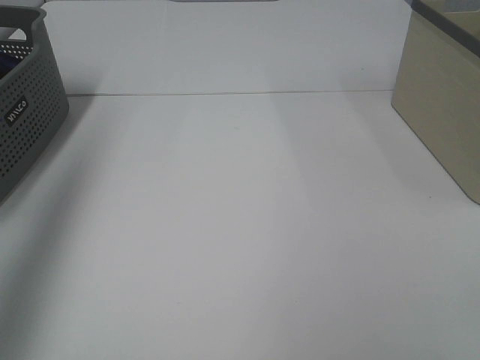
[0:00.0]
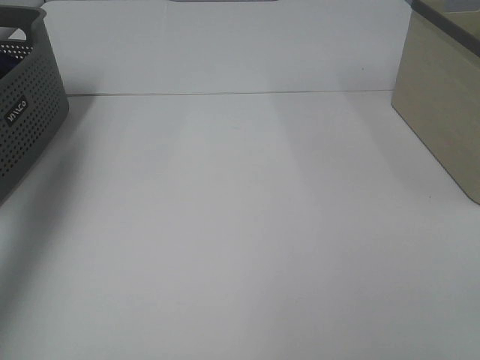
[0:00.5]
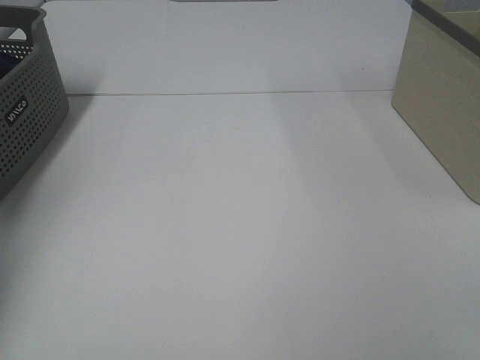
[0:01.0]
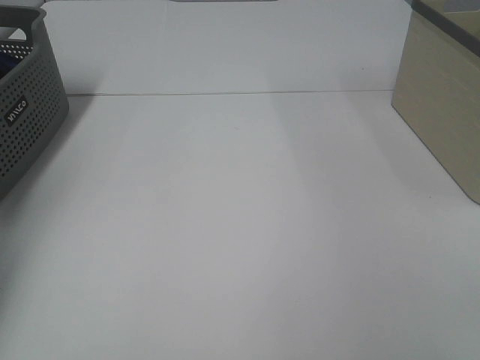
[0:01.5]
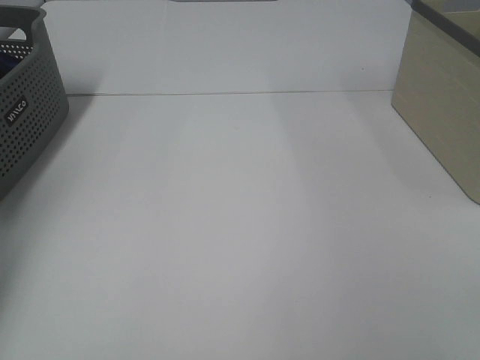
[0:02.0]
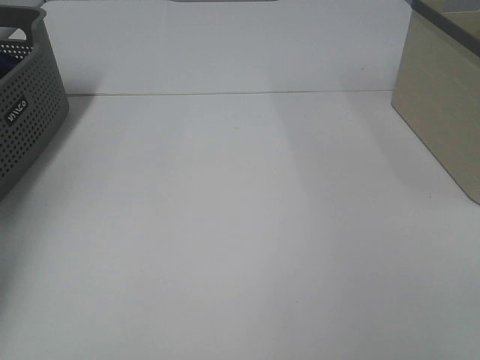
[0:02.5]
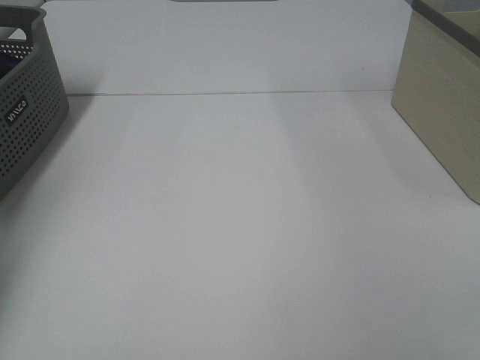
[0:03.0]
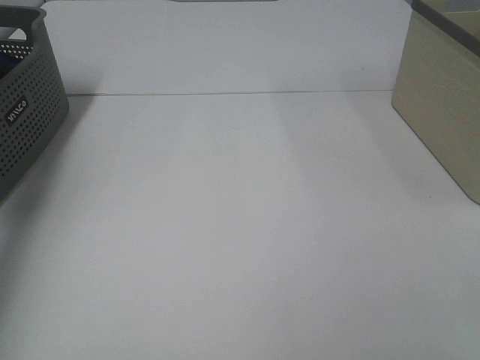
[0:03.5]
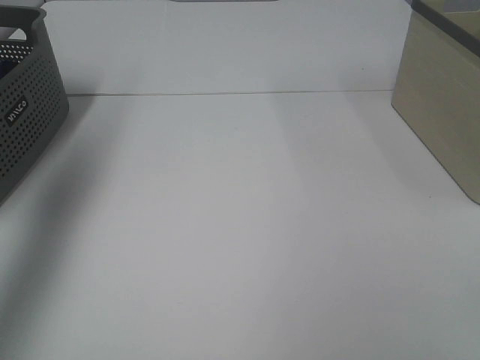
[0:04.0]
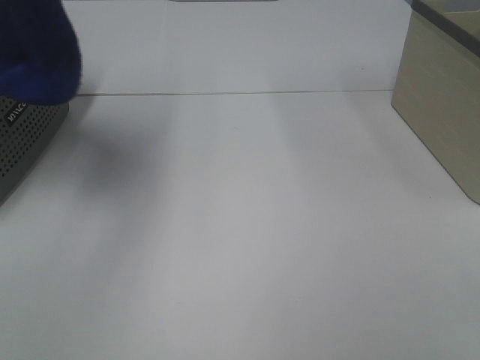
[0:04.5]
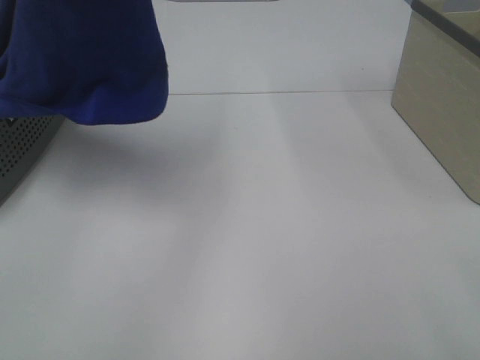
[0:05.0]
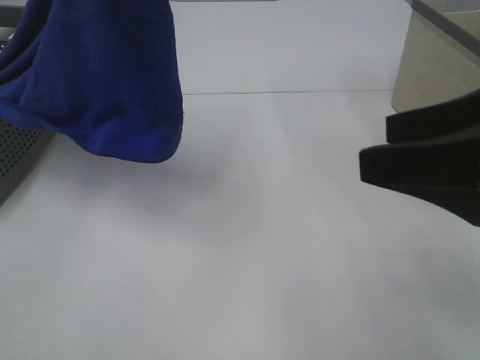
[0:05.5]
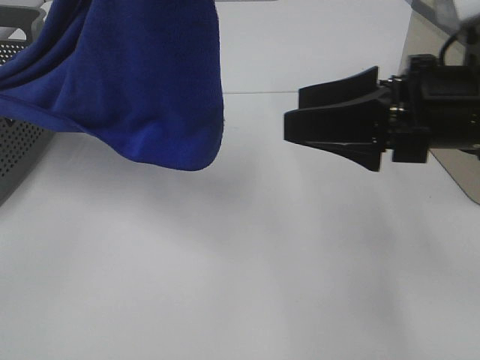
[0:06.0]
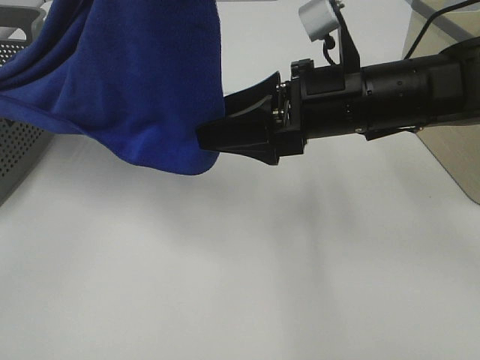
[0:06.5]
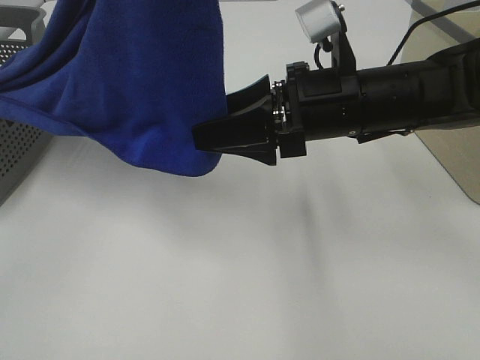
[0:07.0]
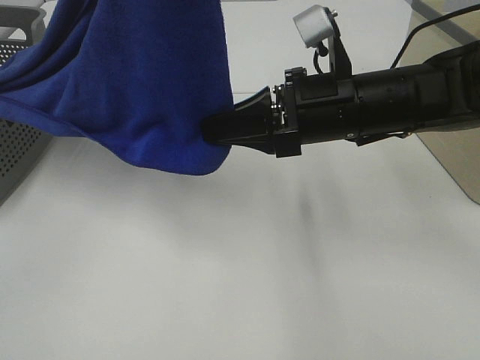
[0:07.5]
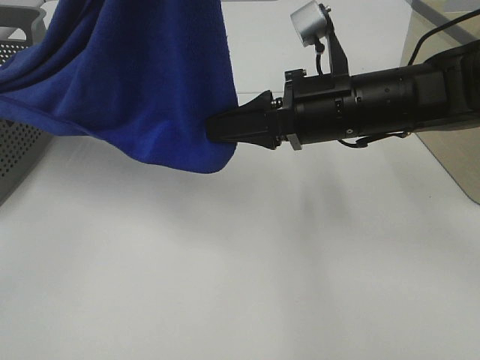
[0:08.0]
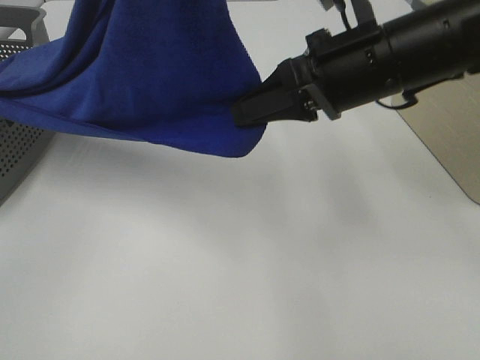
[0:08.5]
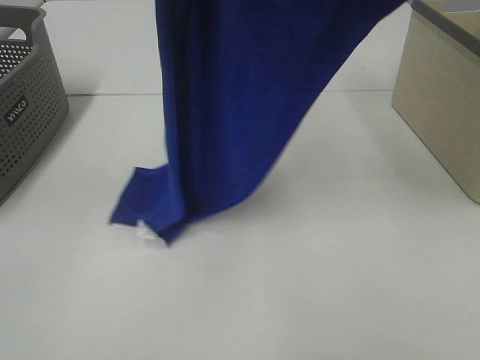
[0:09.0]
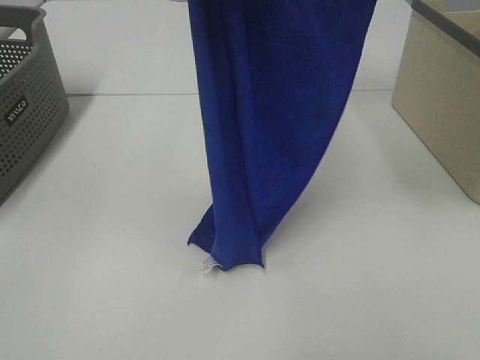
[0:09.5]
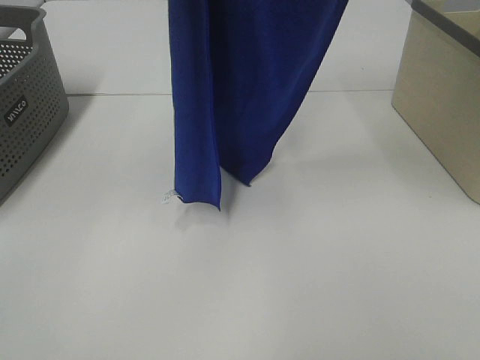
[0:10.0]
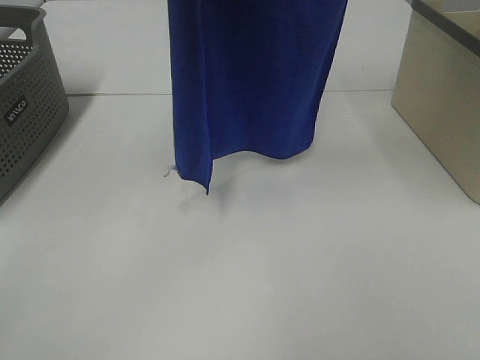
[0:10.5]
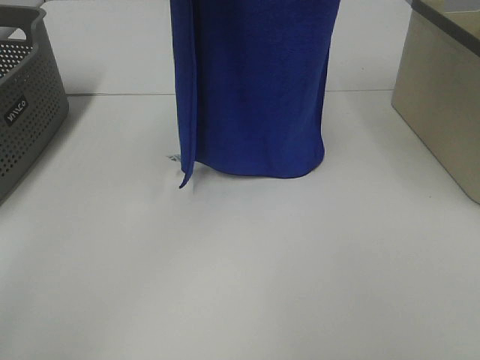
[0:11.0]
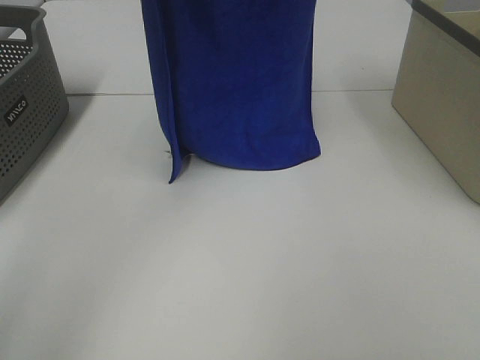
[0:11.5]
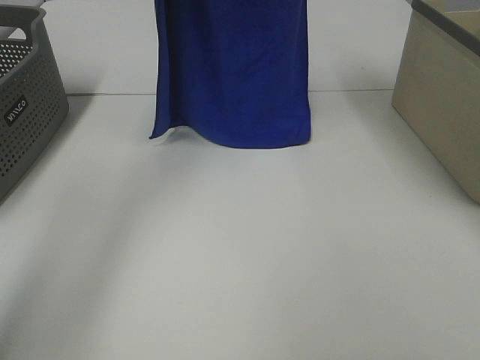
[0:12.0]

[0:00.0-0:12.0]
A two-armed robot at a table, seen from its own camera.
Task of the whole recording: Remove the towel and place it.
Step, 0:04.0 to 0:08.5: Right hand: grab a corner of the blue towel and straighten it.
0:00.0 to 0:02.0: The left gripper goes roughly 35 cm downward and forward.
0:02.0 to 0:04.0: The left gripper moves upward and backward, some 30 cm, and closes up.
0:04.0 to 0:06.0: The right gripper moves forward, some 25 cm. Meanwhile the left gripper goes approximately 25 cm to the right and backward.
0:06.0 to 0:08.0: The right gripper travels to the left and forward by roughly 10 cm, and closes its fingers.
0:08.0 to 0:10.0: The right gripper heads upward, covering approximately 30 cm. The left gripper travels forward by about 5 cm.
0:10.0 to 0:12.0: Both grippers move forward, about 15 cm.

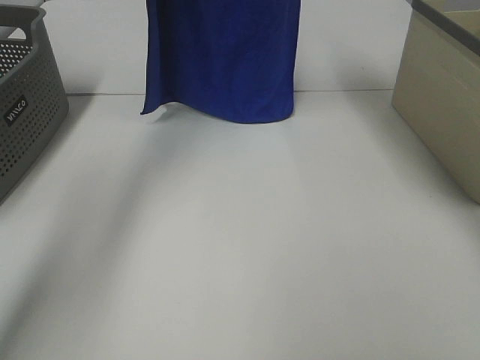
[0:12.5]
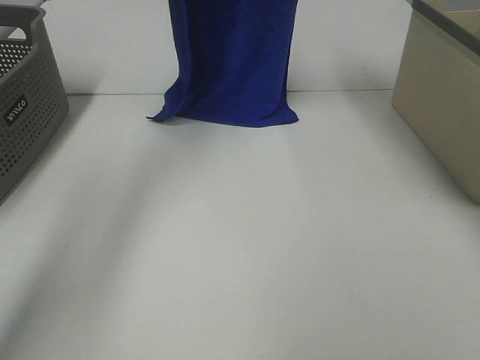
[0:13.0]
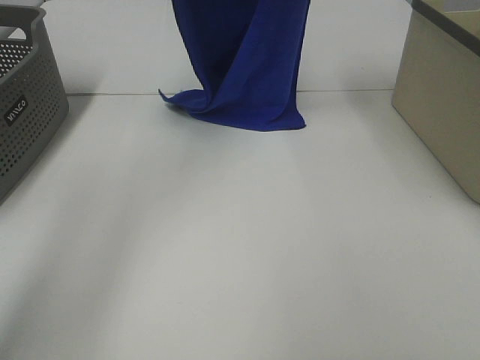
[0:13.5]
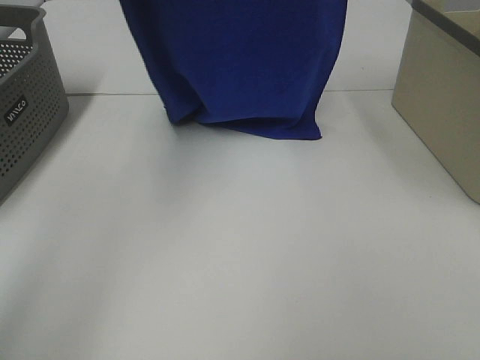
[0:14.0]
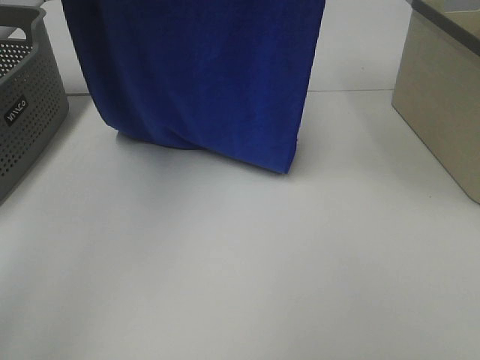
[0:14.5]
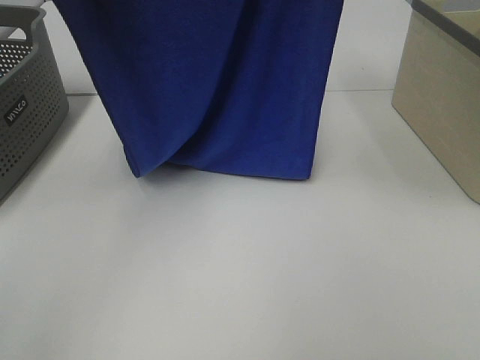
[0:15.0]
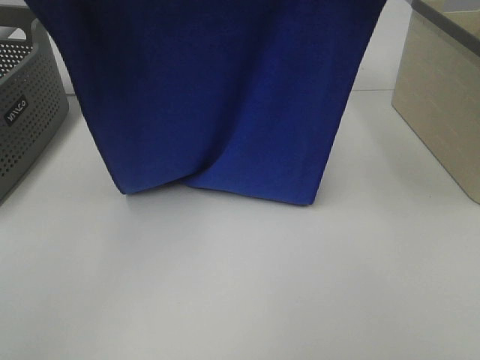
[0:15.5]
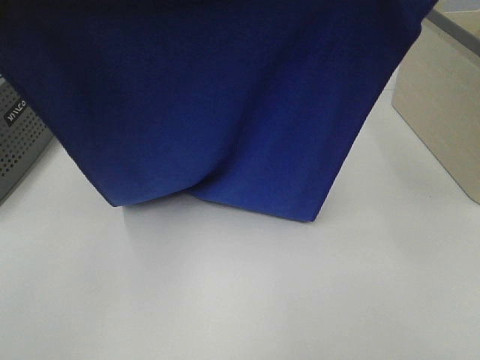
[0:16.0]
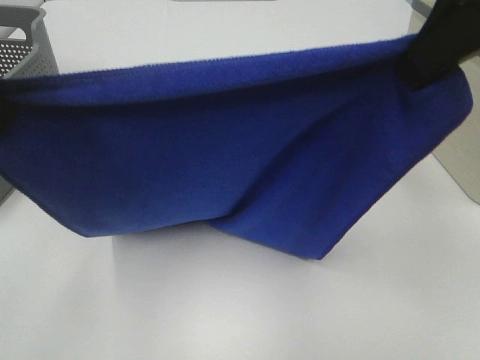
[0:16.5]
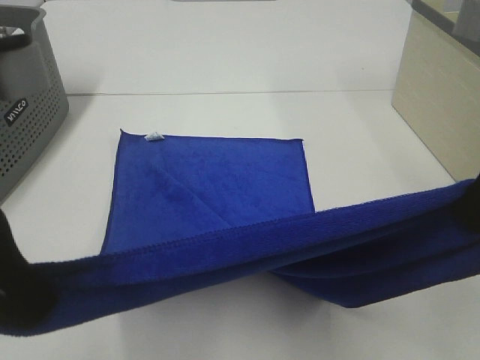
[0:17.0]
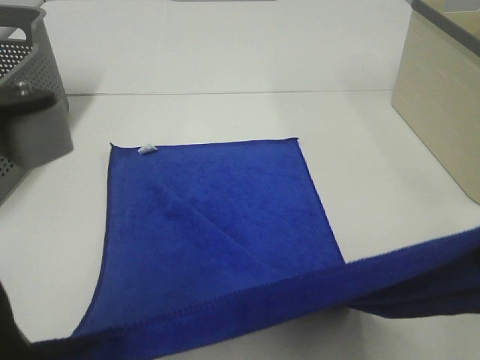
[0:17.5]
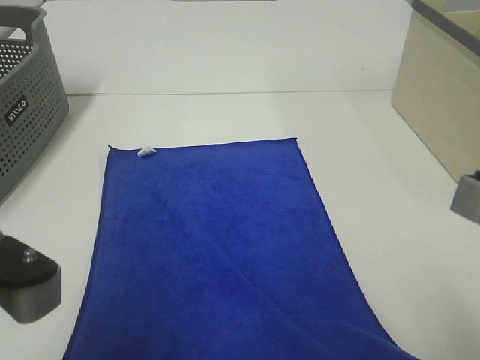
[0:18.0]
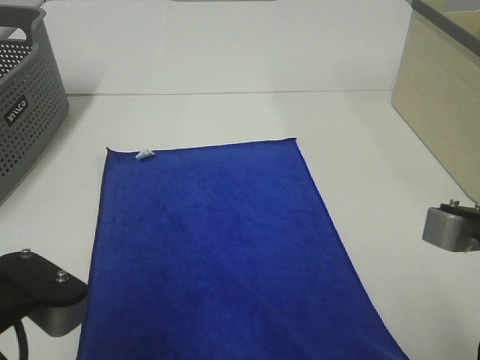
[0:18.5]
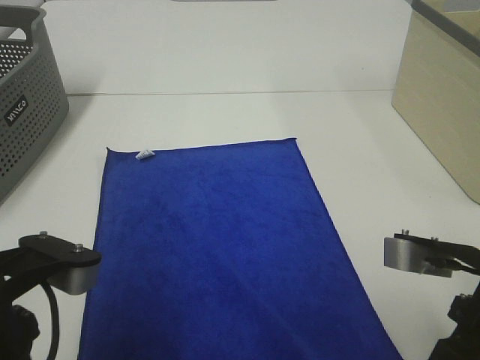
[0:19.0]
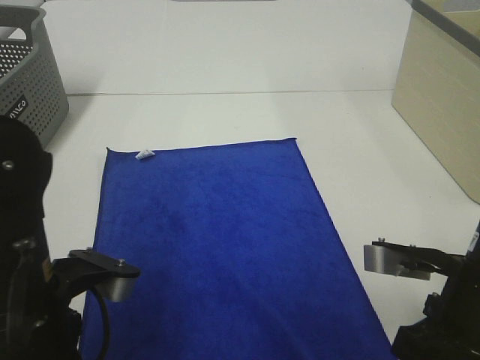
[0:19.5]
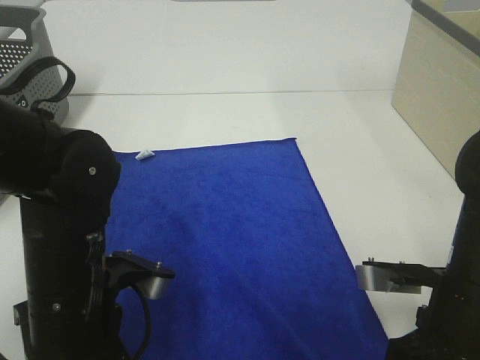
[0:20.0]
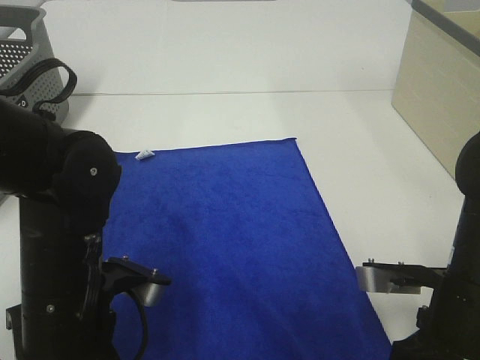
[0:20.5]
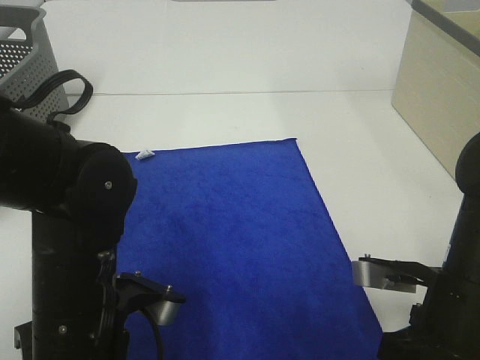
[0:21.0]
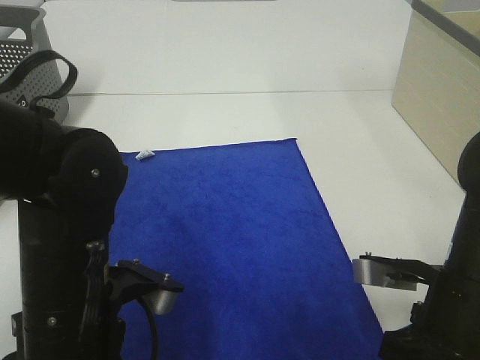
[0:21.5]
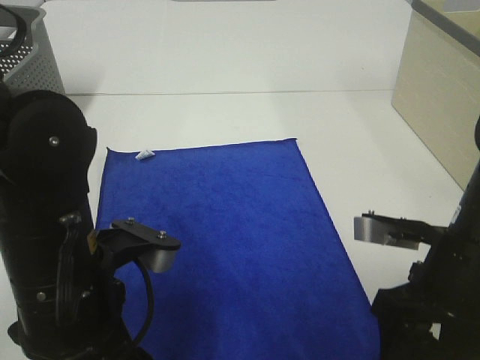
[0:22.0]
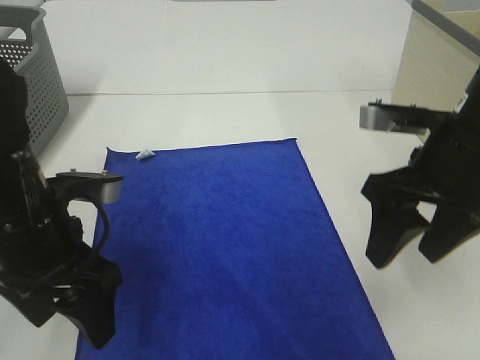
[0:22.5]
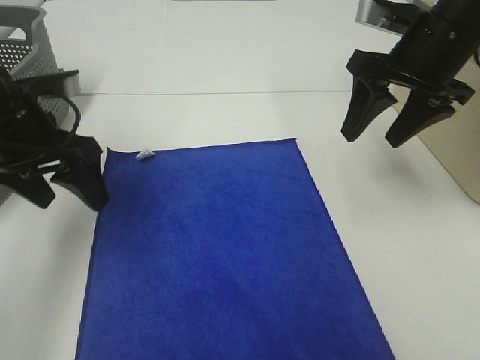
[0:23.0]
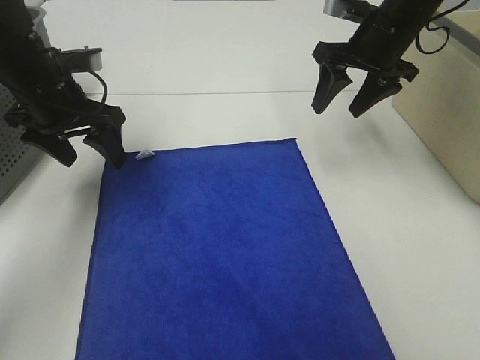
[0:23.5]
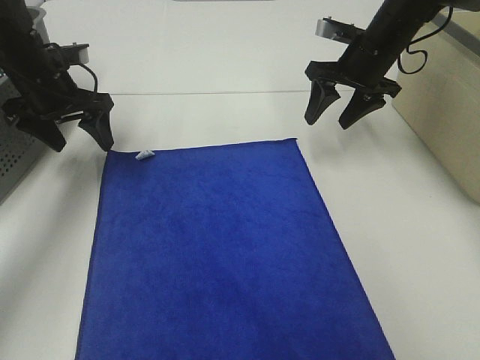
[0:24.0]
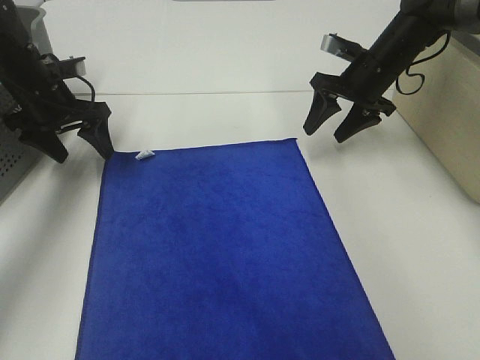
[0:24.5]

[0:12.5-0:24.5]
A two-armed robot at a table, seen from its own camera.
Task of the whole recording: Remove the towel and place it.
Step, 0:12.5 to 0:15.5: Left hand: spread the blue towel flat on the table.
Step, 0:12.5 to 0:15.5: Right hand: spread the blue towel flat on the table.
0:12.5 to 0:14.5: The right gripper goes approximately 15 cm backward; the left gripper is displaced backward and upward by about 20 cm.
0:14.5 to 0:16.5: The left gripper travels downward and backward by some 20 cm. Meanwhile the right gripper moves backward and downward, approximately 15 cm.
0:16.5 to 0:18.5: Both grippers travel together downward and backward, roughly 20 cm.
0:18.5 to 0:20.5: Both grippers travel together downward and forward, approximately 10 cm. The right gripper opens up.
0:20.5 to 0:22.5: The left gripper shifts by roughly 10 cm, and opens its fingers. The right gripper moves upward and forward, approximately 15 cm, and opens.
0:22.5 to 0:24.5: The left gripper travels forward and to the left by about 25 cm. The right gripper moves forward, about 25 cm.

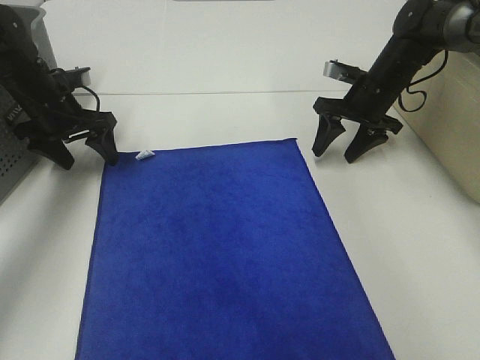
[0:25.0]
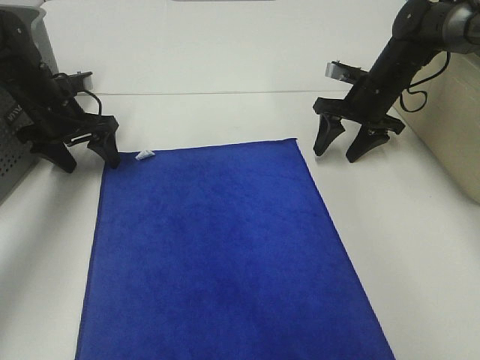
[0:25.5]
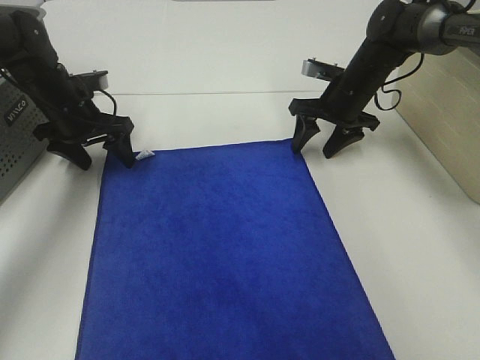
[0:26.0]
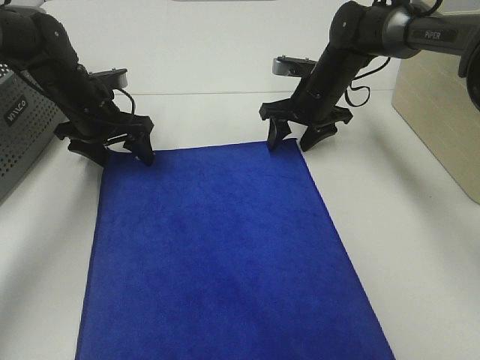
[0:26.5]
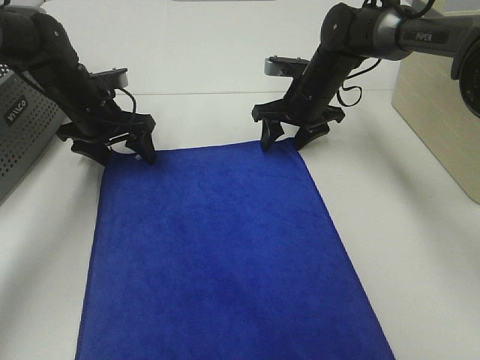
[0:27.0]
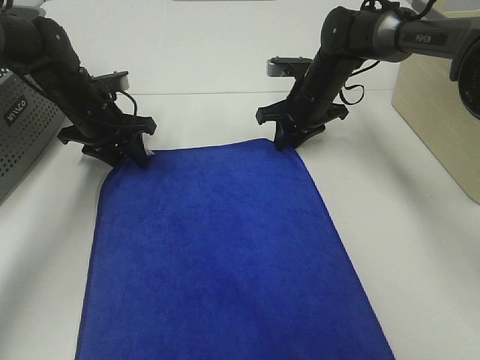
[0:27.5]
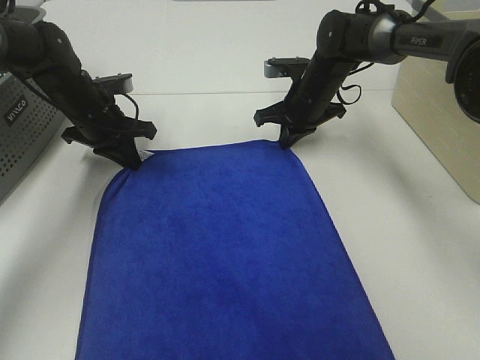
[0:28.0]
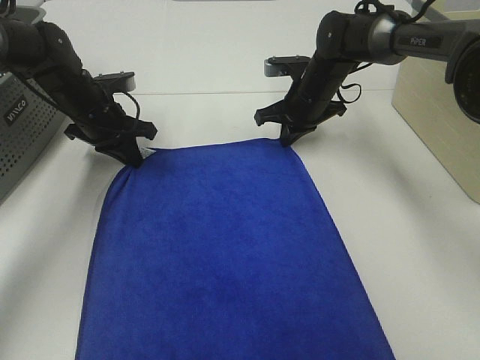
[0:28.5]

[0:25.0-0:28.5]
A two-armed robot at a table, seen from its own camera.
Task of the whole recording: Remove the towel and place it.
0:25.0 to 0:27.0: The left gripper travels to the right by roughly 5 cm, while the right gripper moves to the left, approximately 10 cm.
0:27.0 to 0:28.5: The right gripper closes, while the left gripper closes up.
